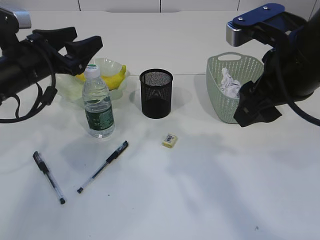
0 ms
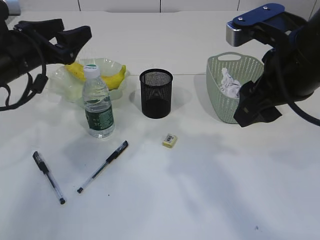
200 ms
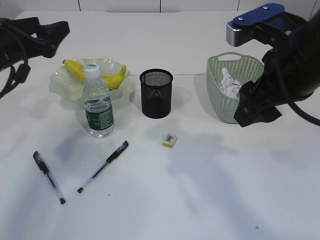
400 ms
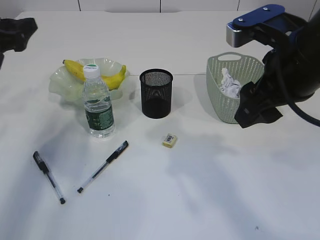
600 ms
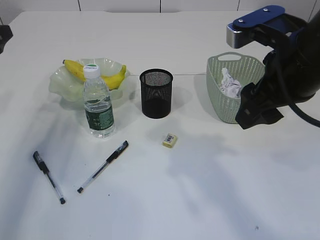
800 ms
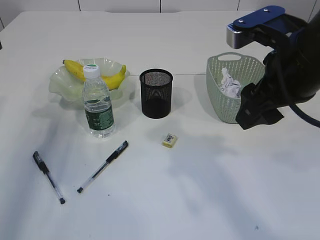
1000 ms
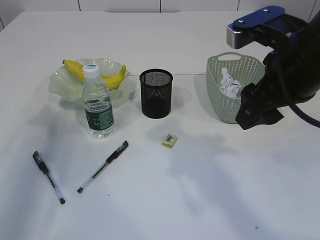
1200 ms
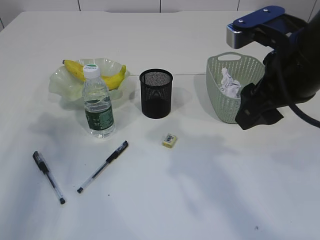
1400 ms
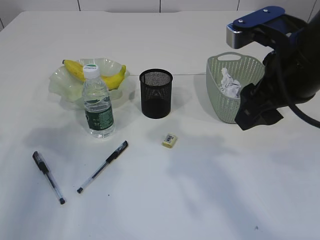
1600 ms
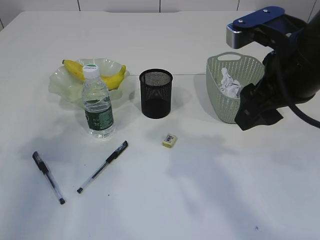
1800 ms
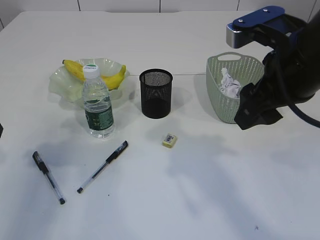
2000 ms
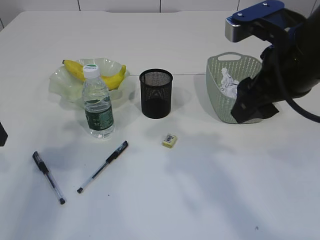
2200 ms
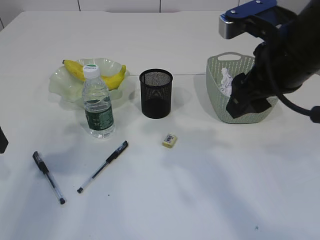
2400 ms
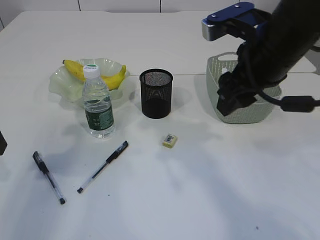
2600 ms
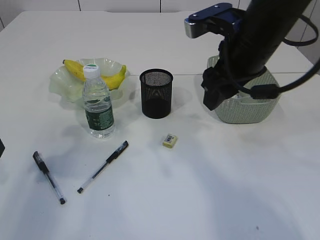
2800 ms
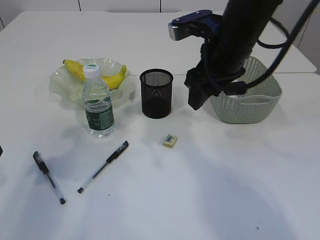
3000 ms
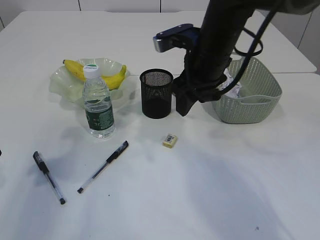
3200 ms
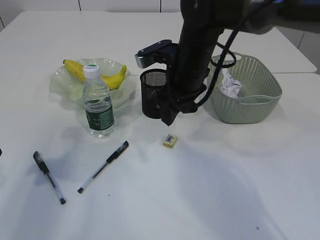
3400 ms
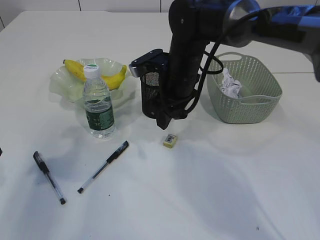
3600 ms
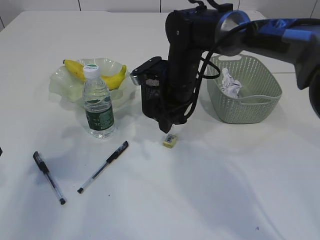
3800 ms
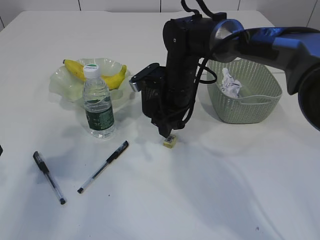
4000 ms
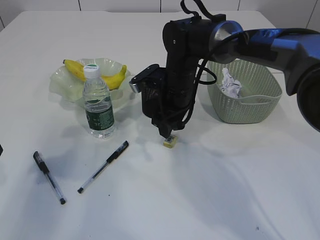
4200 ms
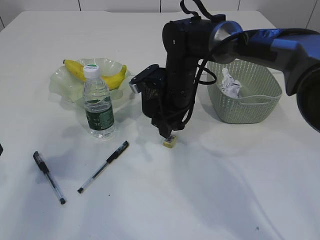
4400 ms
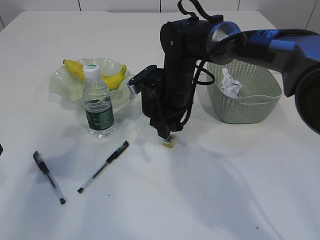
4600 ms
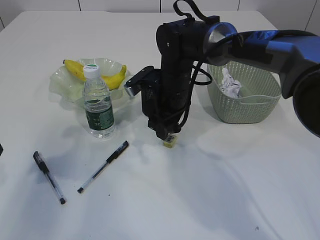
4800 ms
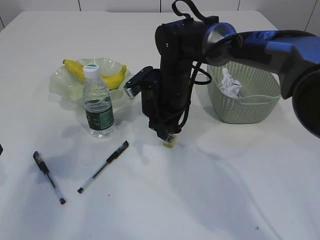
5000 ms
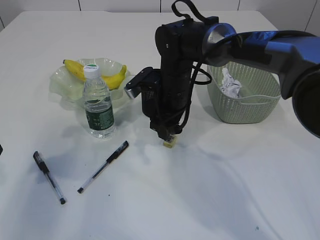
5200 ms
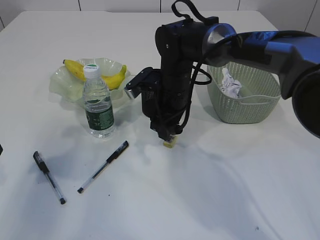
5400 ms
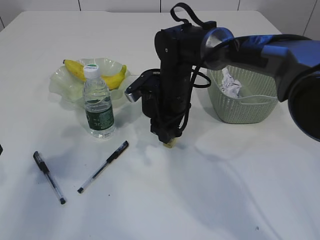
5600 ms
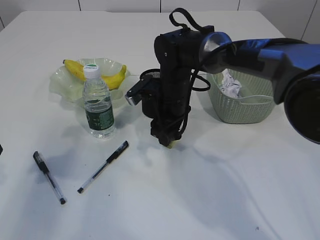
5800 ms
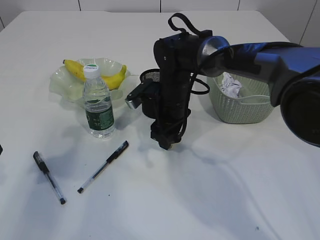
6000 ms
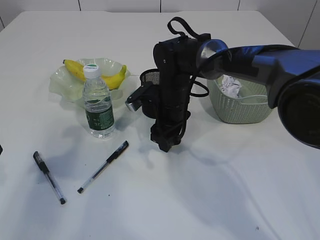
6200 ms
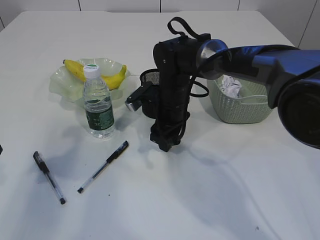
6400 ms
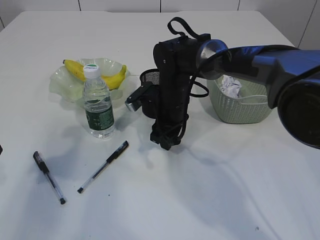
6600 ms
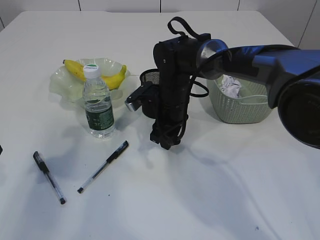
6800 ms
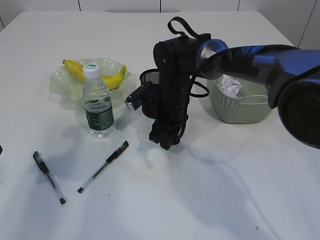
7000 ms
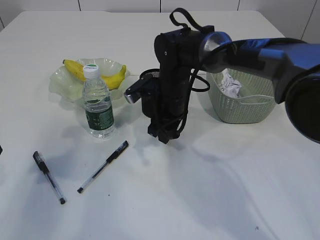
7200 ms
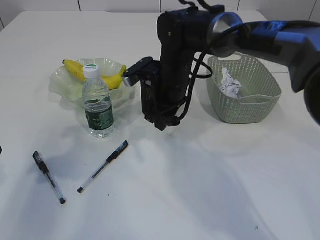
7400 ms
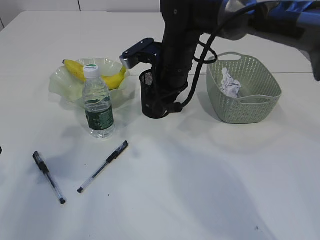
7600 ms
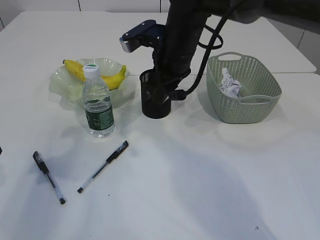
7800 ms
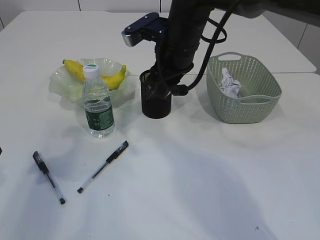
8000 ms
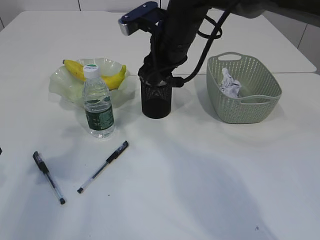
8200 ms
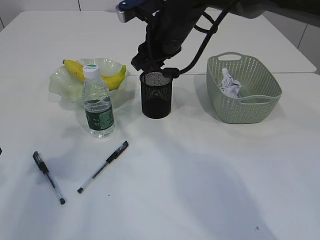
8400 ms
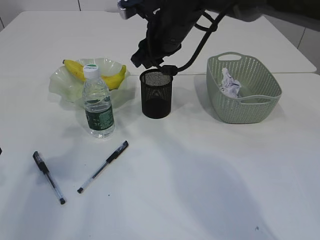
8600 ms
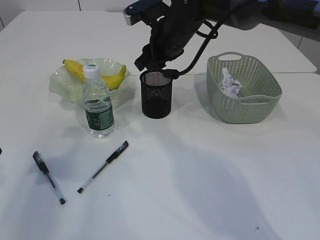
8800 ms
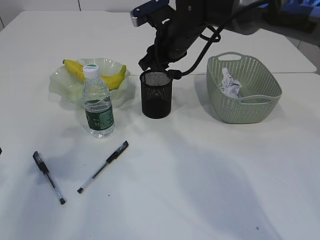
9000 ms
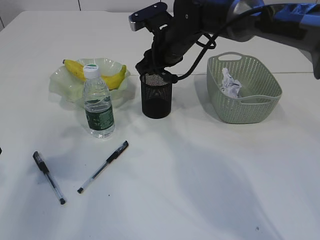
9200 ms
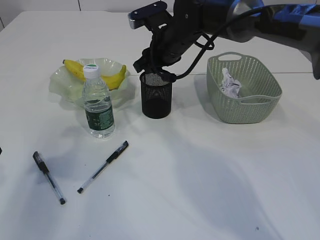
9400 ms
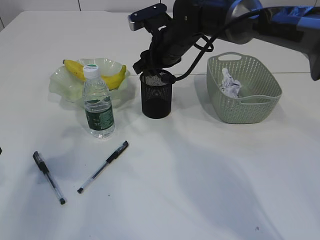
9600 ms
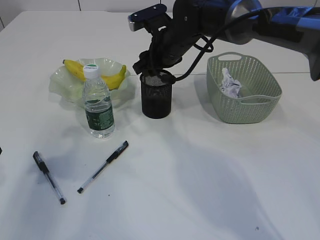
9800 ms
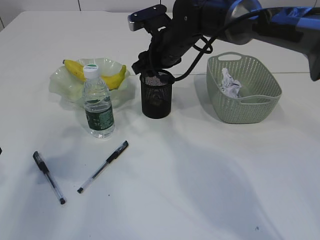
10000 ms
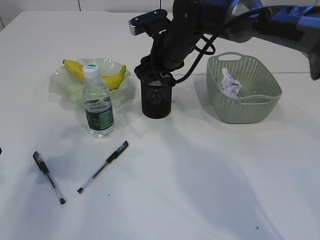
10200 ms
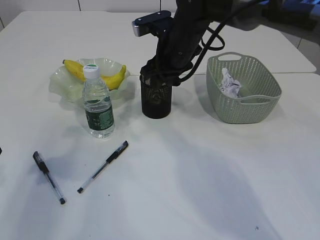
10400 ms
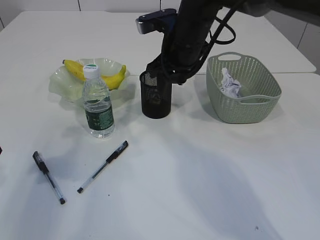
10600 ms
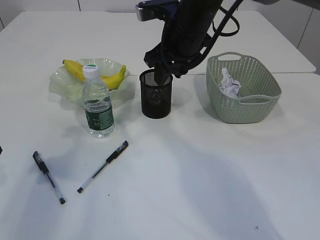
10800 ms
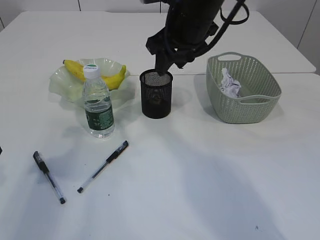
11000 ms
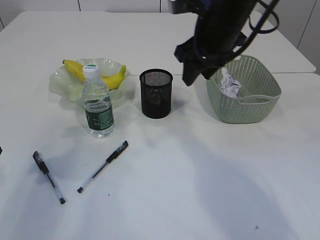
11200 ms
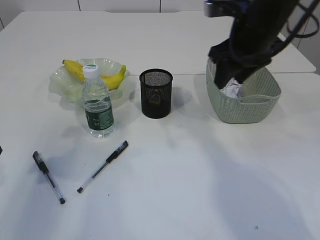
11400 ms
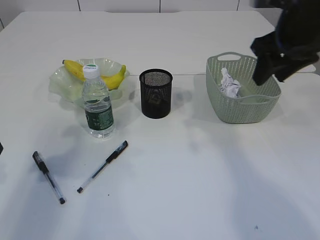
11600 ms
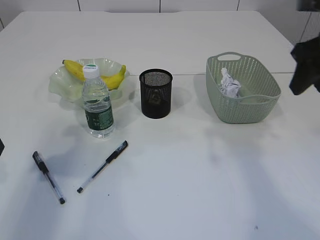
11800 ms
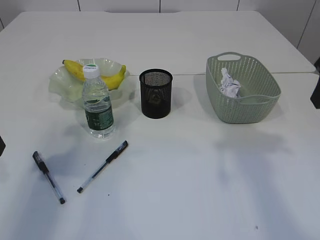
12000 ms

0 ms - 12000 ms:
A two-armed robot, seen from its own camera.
Step, 0 ms - 7200 ms: Pick up the eraser.
Step, 7400 ms - 11000 ms: Place the eraser into the pen holder.
0 ms - 1600 ms: The left gripper goes about 10 cm to the left and backward.
1600 ms - 3000 ms: The right gripper heads forward, covering approximately 10 cm; the left gripper moves roughly 5 cm.
3000 ms - 4400 ms: The right gripper heads downward, forward and to the left, covering approximately 15 cm.
4400 ms - 6000 ms: The grippers make only small movements.
6000 ms - 7600 ms: The right gripper travels upward by about 10 cm.
7600 ms - 9000 ms: The right gripper shifts by approximately 5 cm.
9000 ms - 10400 ms: There are only small adjustments of the grippers.
10400 ms - 12000 ms: The right gripper is displaced to the right, backward and upward by about 30 cm.

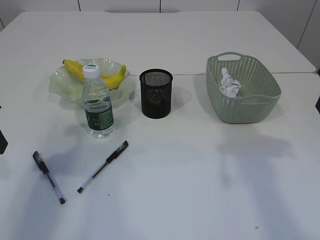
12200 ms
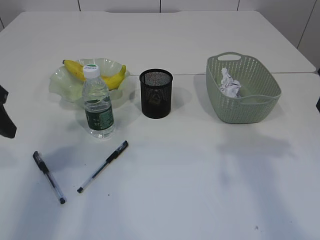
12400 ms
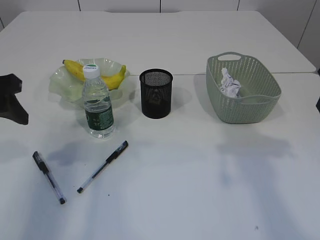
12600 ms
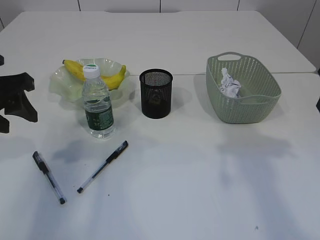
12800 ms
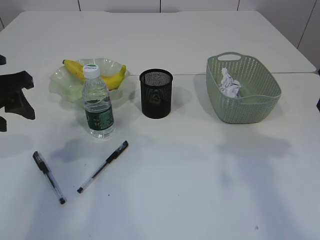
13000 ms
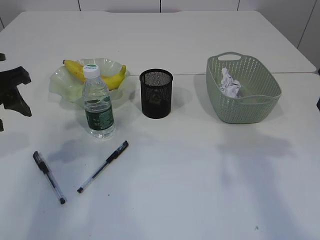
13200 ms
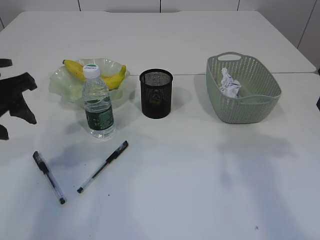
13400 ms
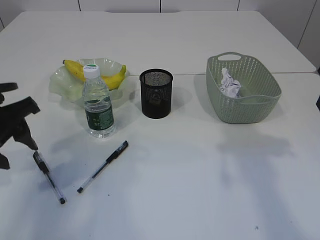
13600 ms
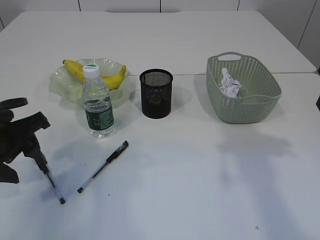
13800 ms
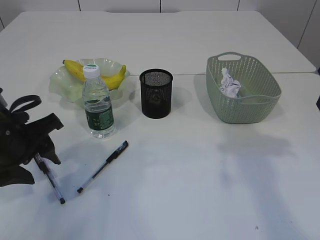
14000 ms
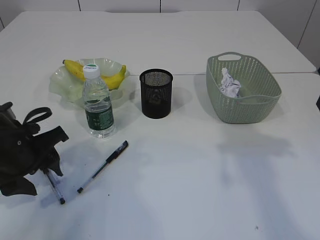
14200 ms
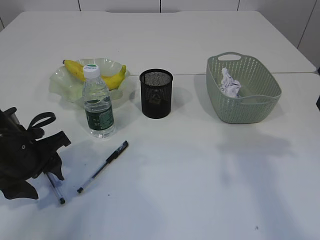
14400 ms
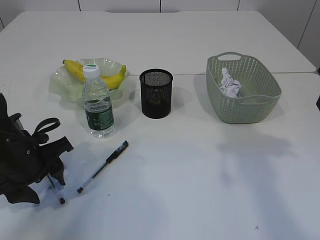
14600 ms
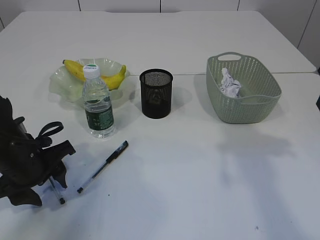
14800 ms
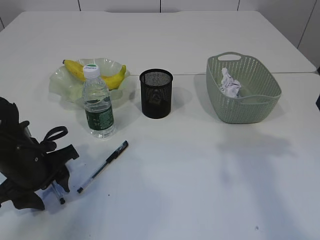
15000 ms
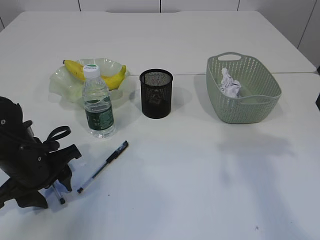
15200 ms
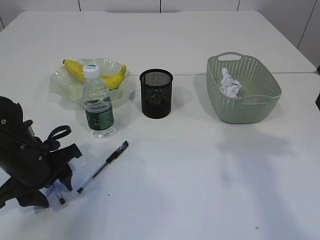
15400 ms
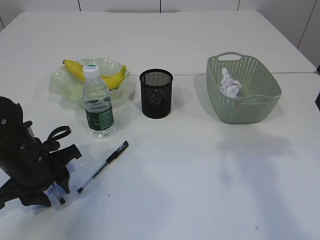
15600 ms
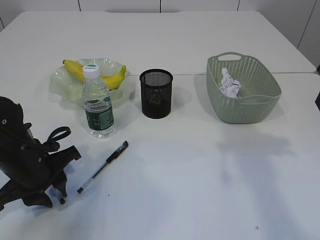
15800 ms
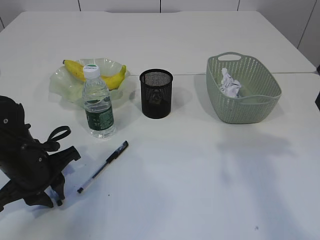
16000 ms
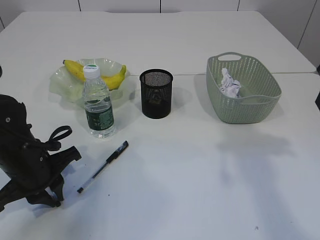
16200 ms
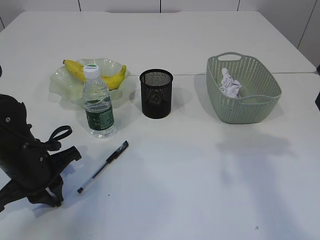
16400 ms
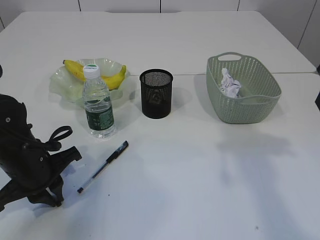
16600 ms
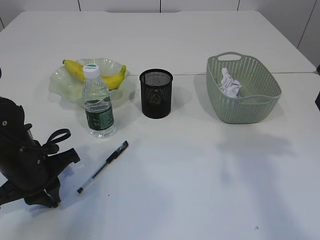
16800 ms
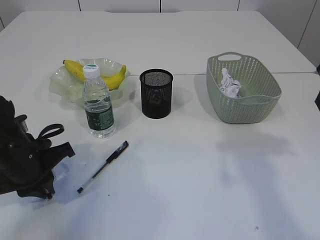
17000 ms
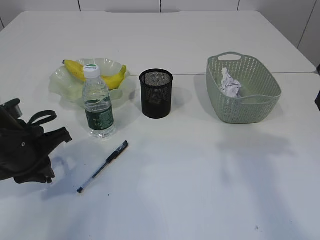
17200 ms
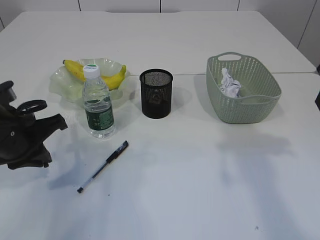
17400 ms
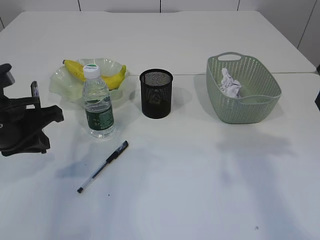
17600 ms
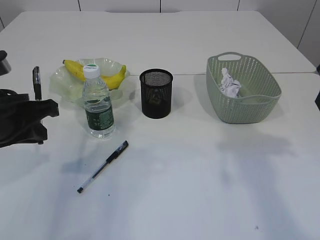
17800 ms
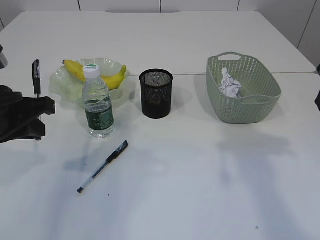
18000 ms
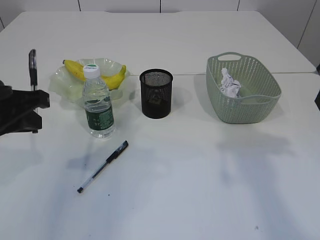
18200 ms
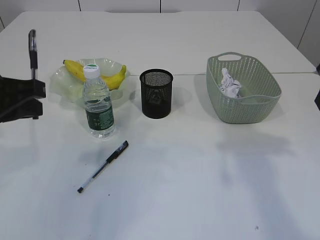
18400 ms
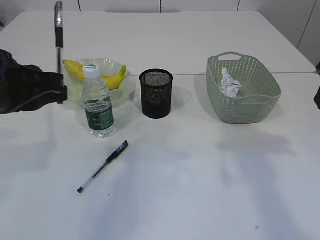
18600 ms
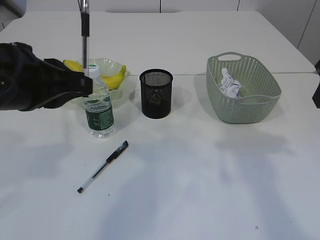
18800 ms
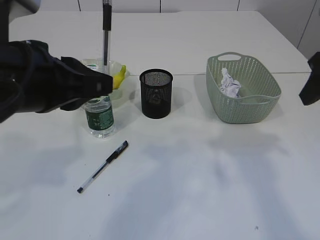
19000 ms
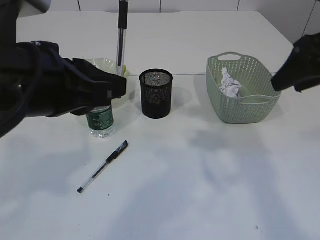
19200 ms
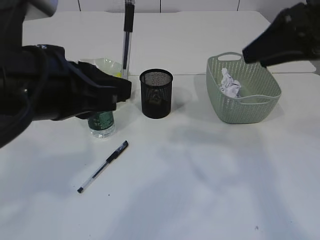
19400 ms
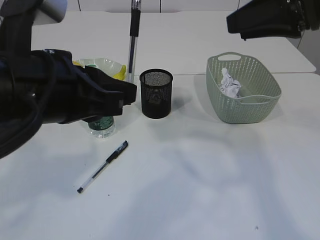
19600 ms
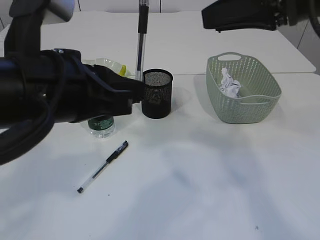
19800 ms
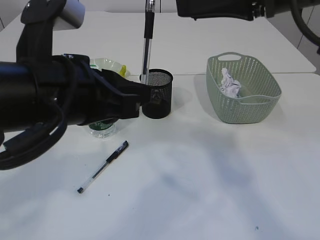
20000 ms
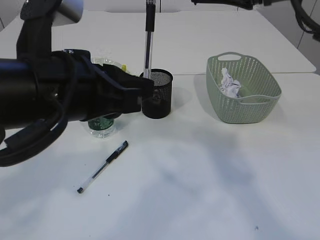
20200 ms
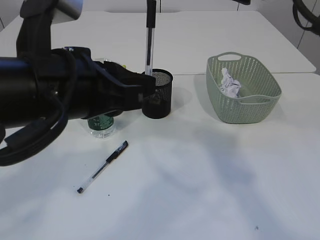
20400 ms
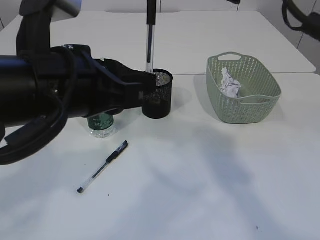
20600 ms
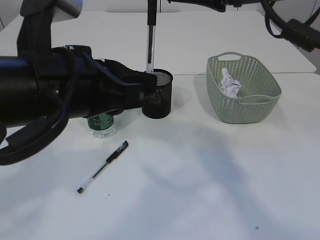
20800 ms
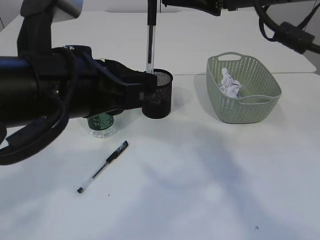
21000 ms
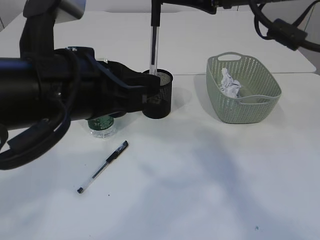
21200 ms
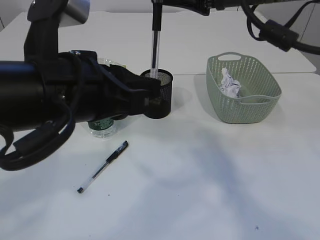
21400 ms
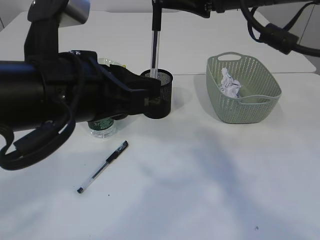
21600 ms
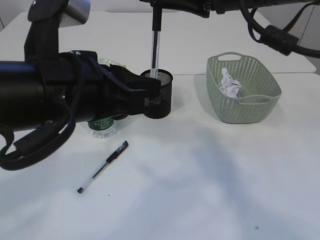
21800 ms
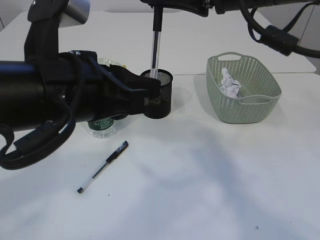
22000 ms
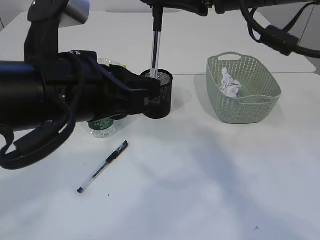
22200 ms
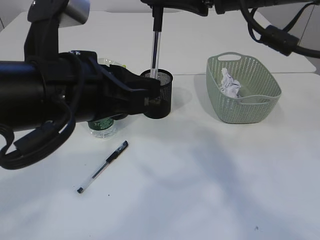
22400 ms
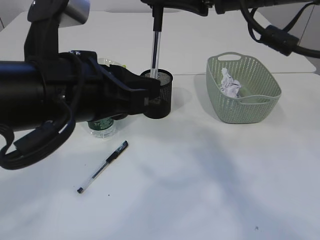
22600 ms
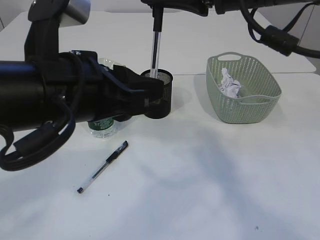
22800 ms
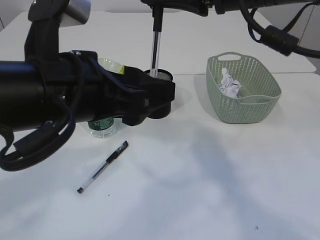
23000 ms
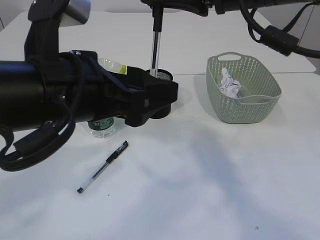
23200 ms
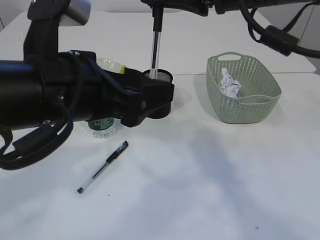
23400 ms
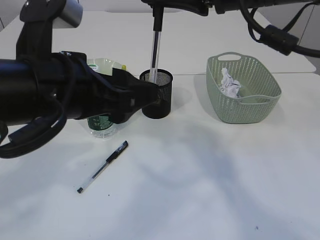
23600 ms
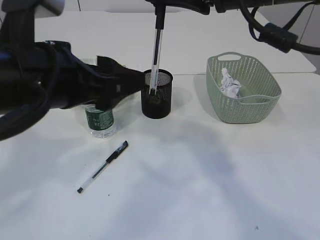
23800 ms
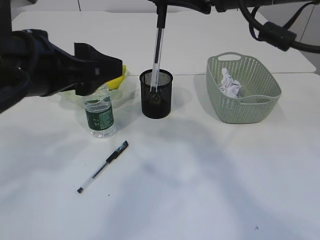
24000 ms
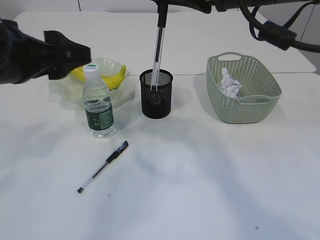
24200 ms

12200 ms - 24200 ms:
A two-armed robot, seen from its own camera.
Step, 12200 ms - 17600 ms: Pick up the pen with left arm.
Step, 17800 ms - 23800 ms: transfer the pen to the right arm.
12200 ms - 13800 ms: The left gripper goes some 10 cm downward and to the right.
13800 ms - 15200 ms: The left gripper heads downward, covering roughly 10 cm.
15200 ms - 16600 ms: The left gripper closes.
16600 ms - 18200 ms: The left gripper heads upward, covering some 15 cm.
18200 ms - 19800 ms: The right gripper is displaced to the left and upward by about 10 cm. Meanwhile the left gripper is displaced to the right and backward by roughly 10 cm.
19800 ms - 21200 ms: The right gripper moves to the left, some 5 cm.
21200 ms - 22600 ms: The right gripper closes its fingers.
22600 ms - 24200 ms: The left gripper is displaced to the left by some 10 cm, and opens up.
